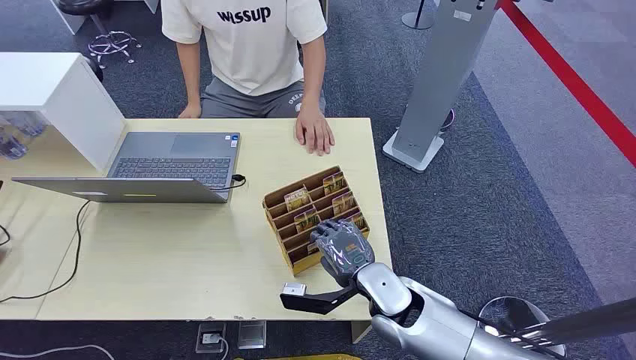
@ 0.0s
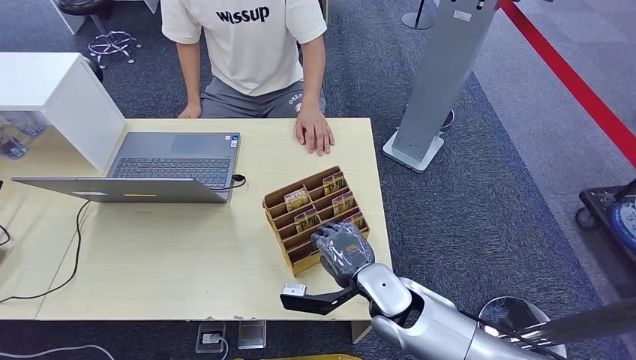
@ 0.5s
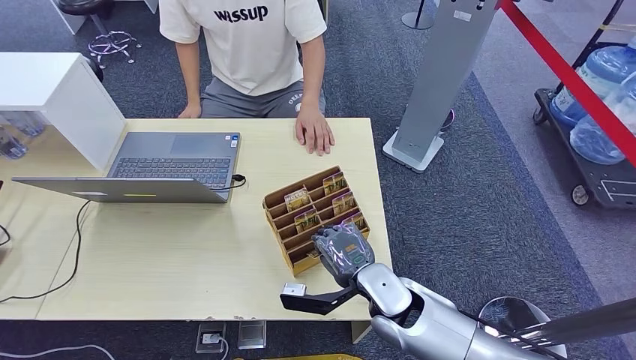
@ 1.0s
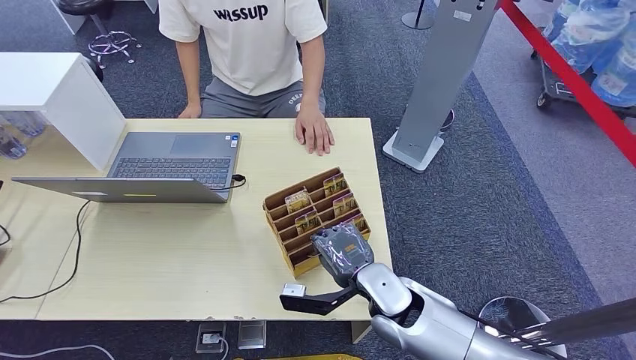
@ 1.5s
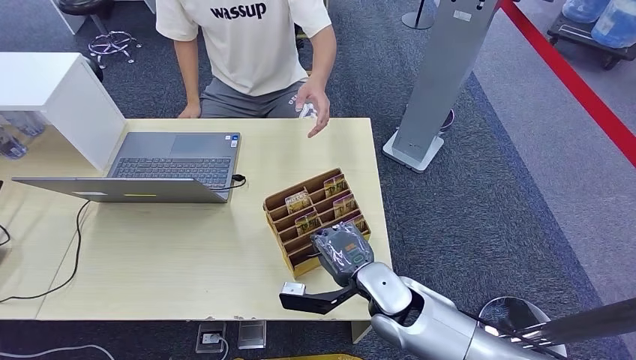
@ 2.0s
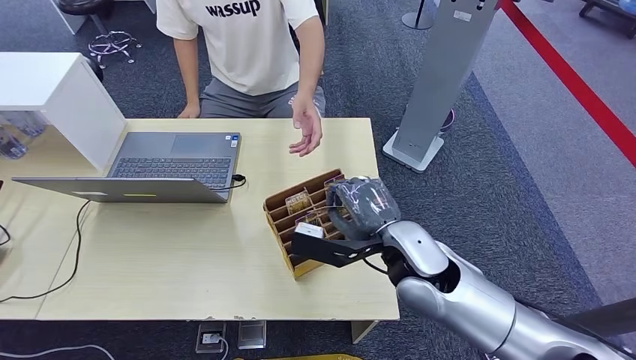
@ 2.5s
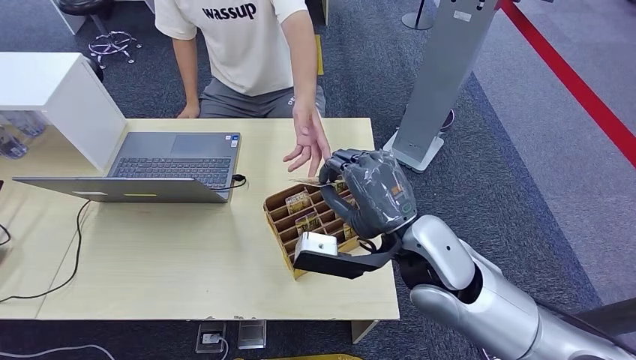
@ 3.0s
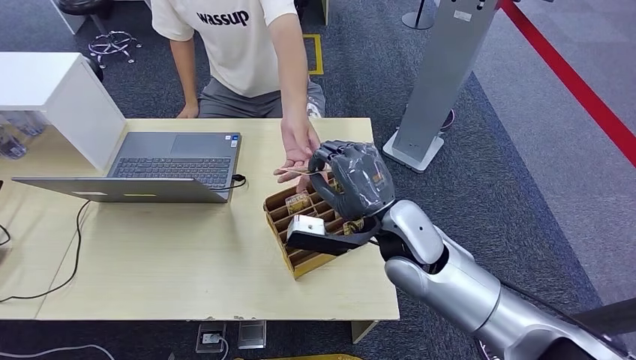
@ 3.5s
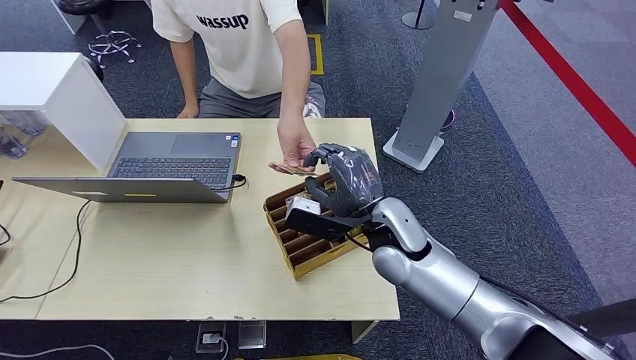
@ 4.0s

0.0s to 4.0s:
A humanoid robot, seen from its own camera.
Step, 0.0s to 2.0s: Pick up the key card from the card box.
Step, 3.0s to 4.0s: Hand the key card to the target.

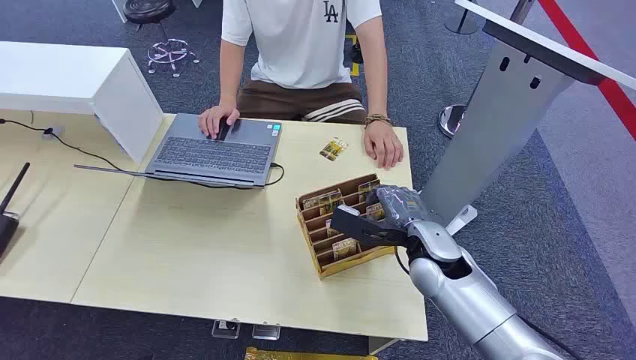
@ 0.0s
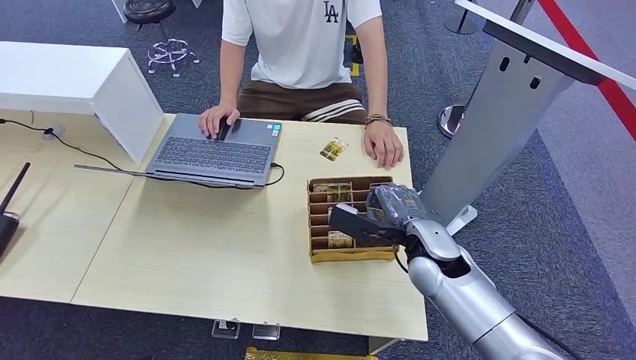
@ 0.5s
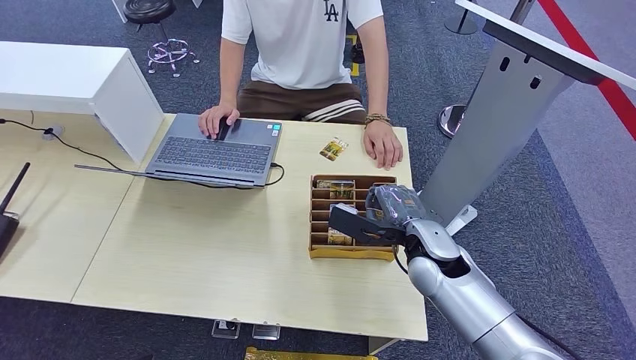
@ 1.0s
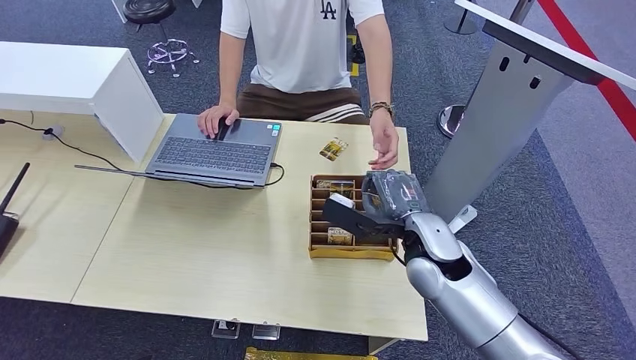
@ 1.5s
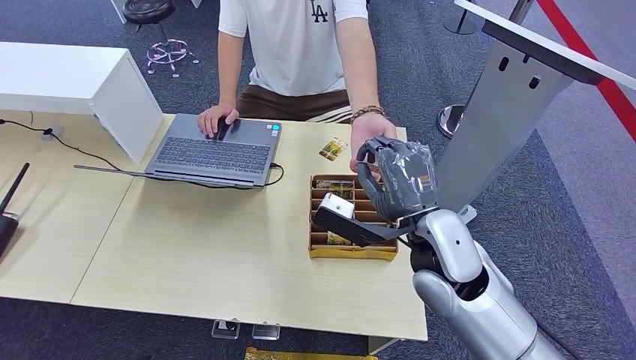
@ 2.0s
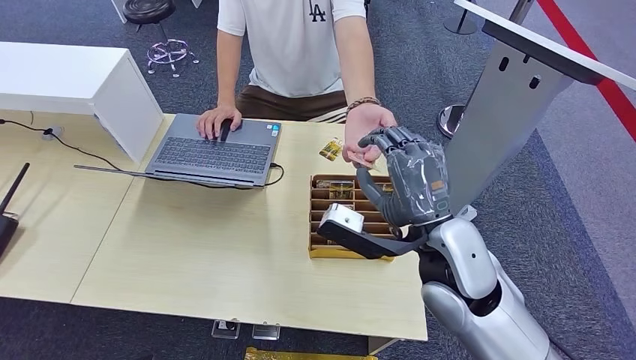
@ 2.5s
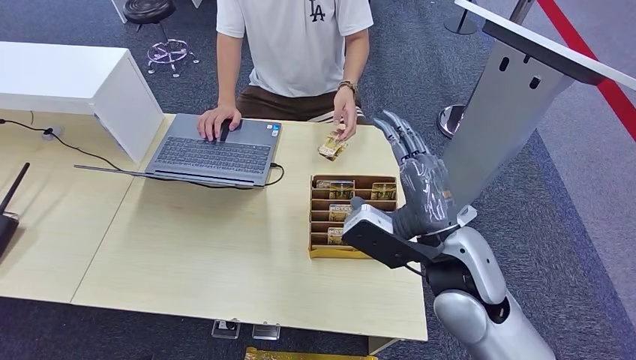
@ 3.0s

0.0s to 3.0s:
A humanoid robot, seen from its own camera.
Step, 0.0s to 1.5s: Pick up the key card from the card box.
Step, 2.0s to 3.0s: Hand the key card to the target.
1.5s to 3.0s: The right hand travels upward and backward by roughly 10 cm.
